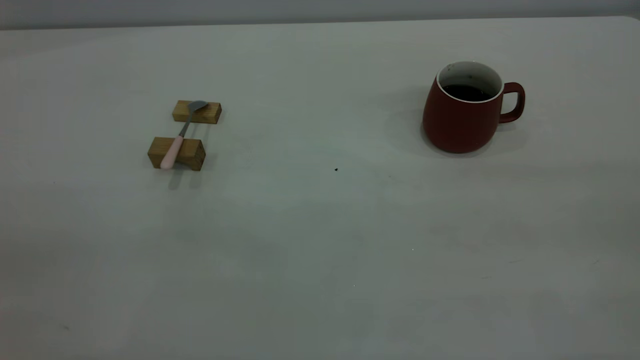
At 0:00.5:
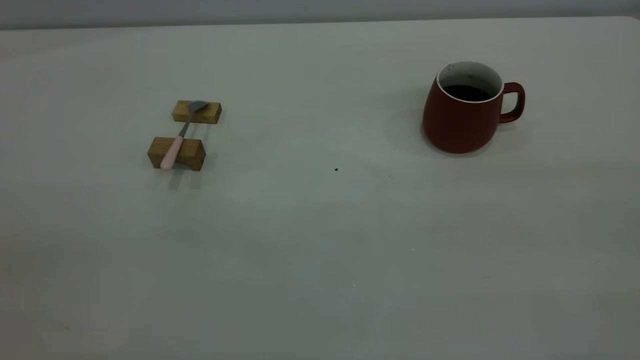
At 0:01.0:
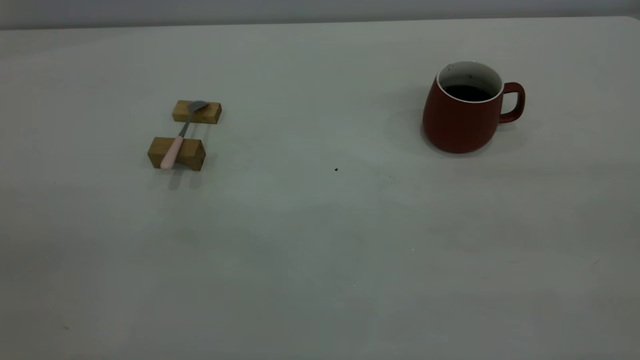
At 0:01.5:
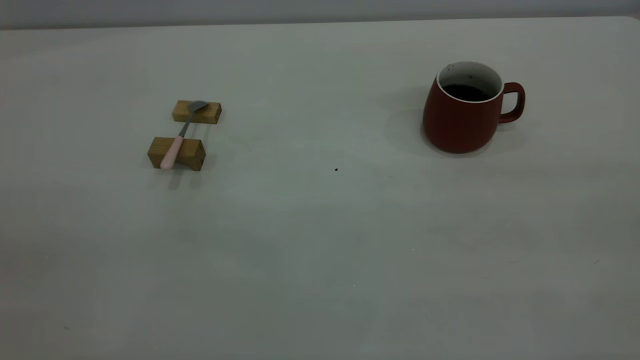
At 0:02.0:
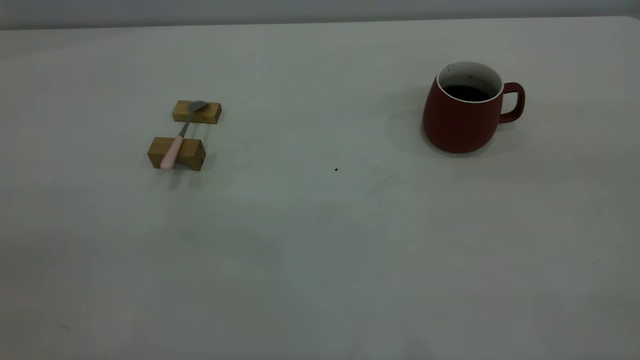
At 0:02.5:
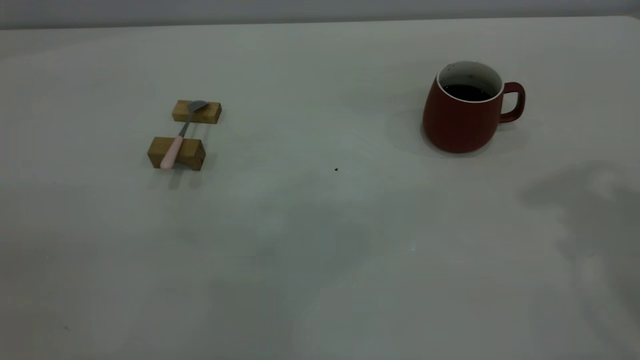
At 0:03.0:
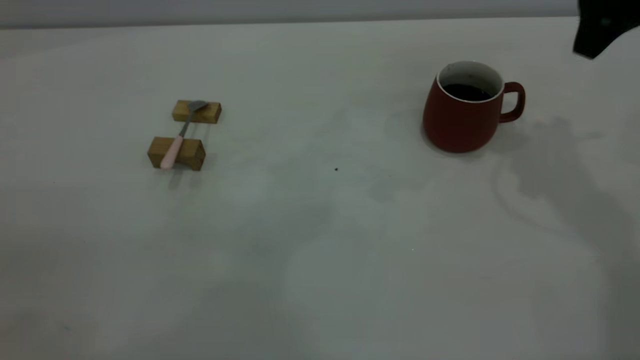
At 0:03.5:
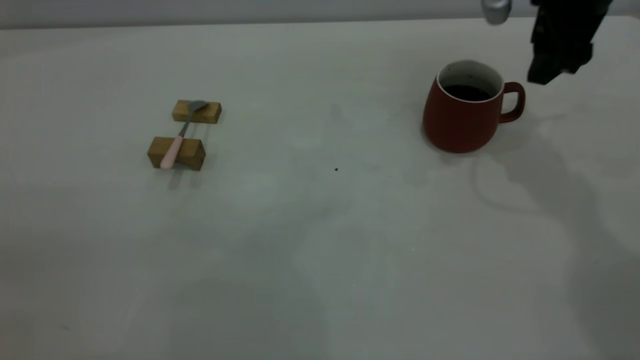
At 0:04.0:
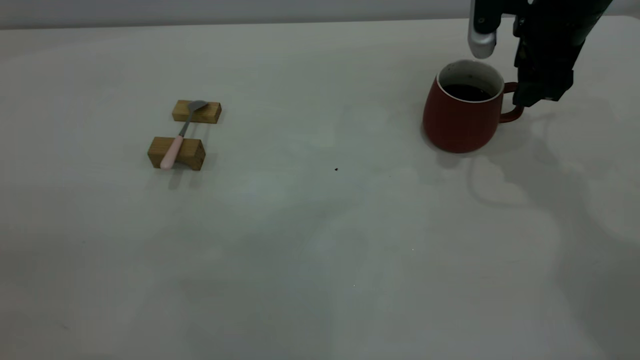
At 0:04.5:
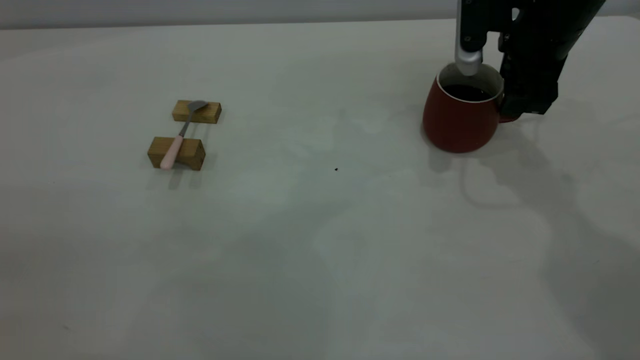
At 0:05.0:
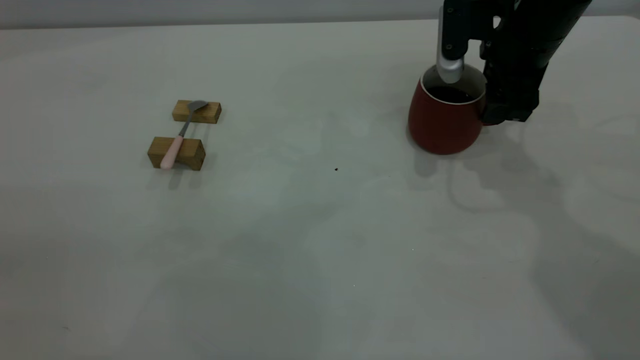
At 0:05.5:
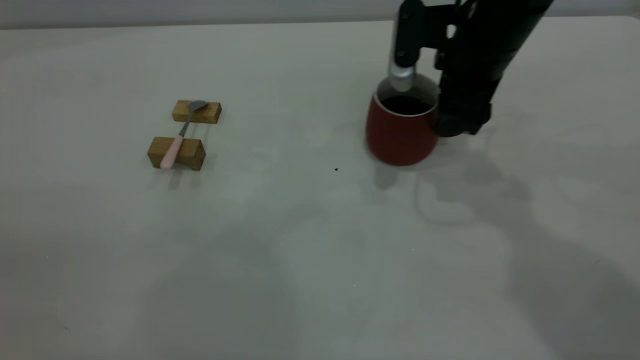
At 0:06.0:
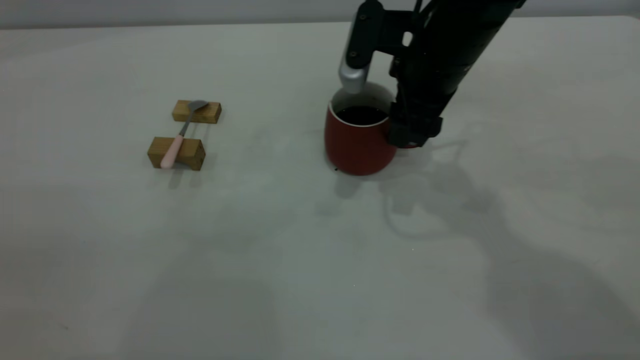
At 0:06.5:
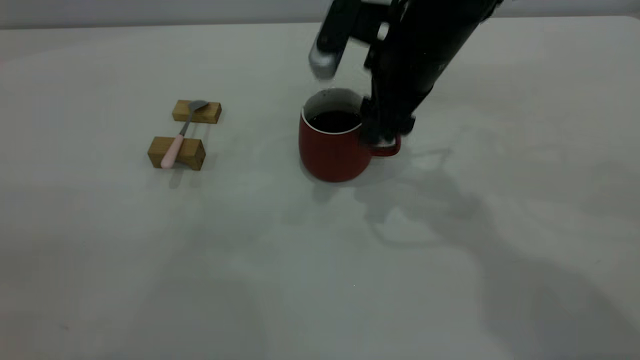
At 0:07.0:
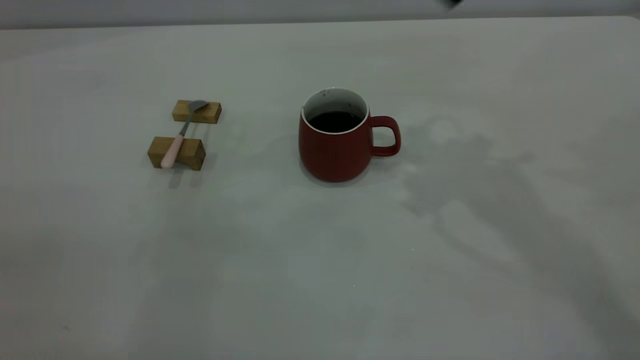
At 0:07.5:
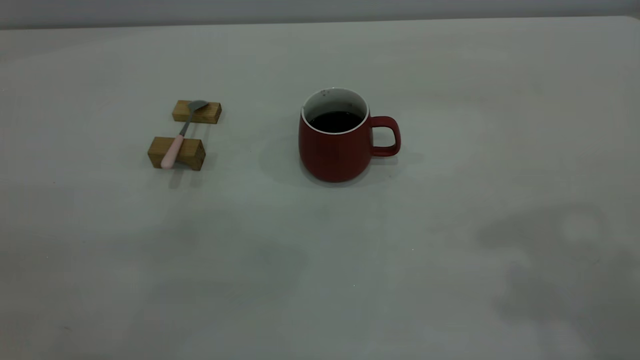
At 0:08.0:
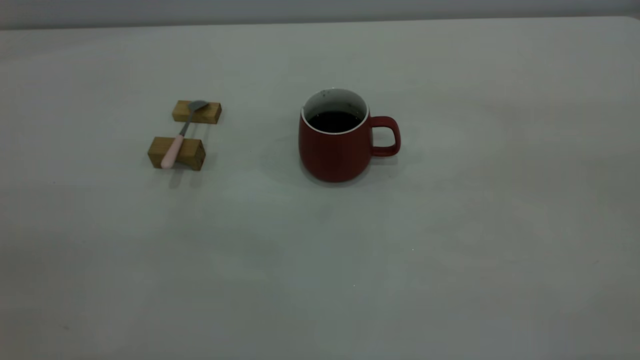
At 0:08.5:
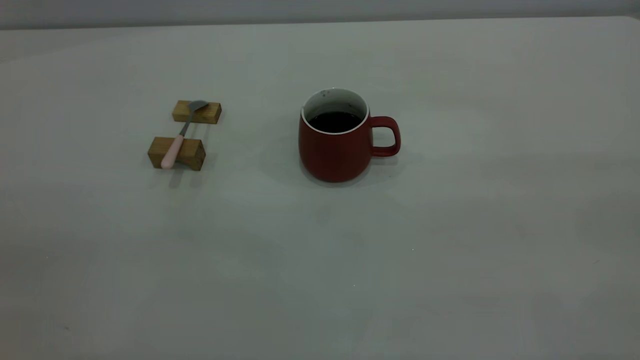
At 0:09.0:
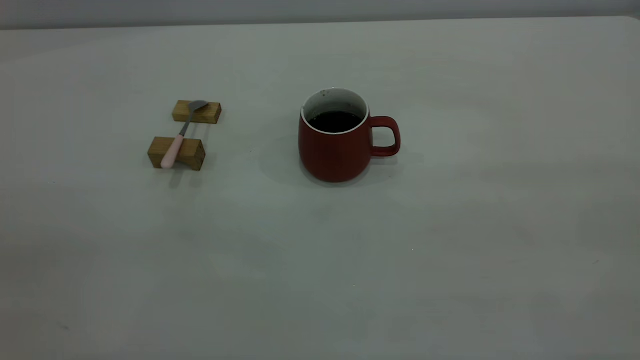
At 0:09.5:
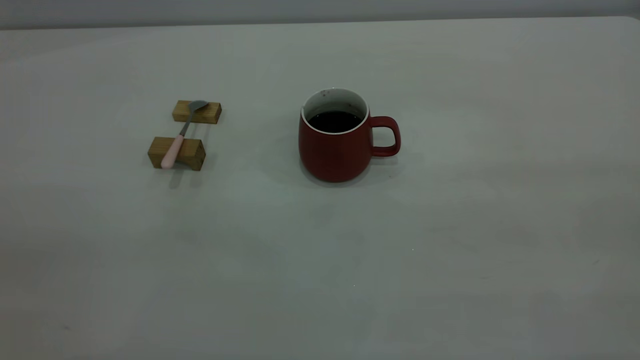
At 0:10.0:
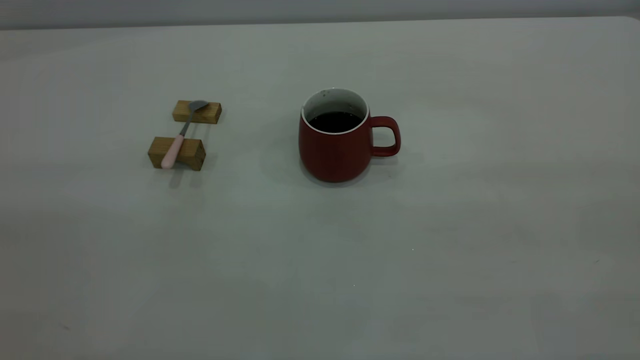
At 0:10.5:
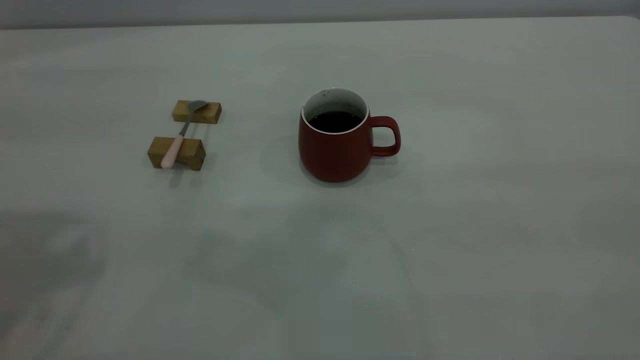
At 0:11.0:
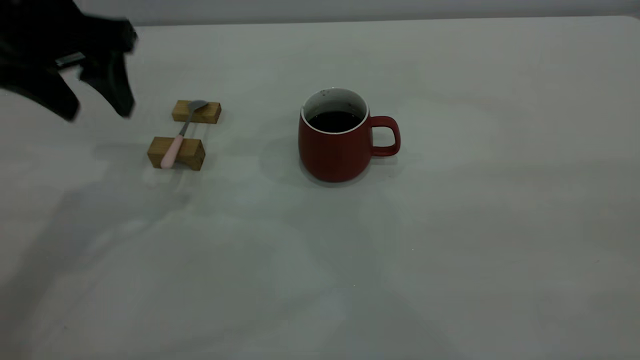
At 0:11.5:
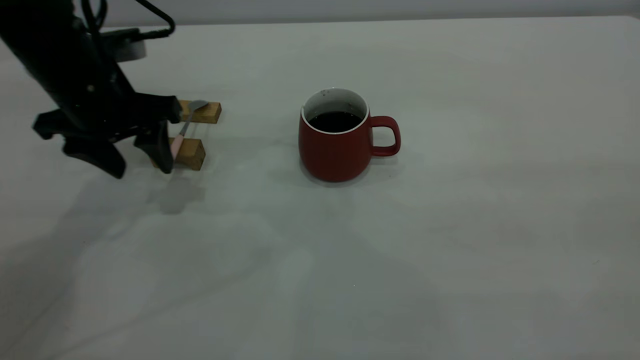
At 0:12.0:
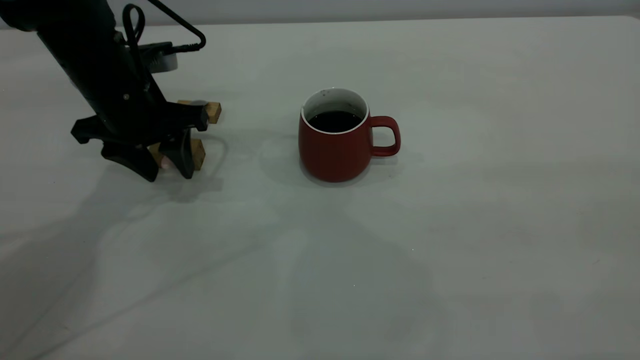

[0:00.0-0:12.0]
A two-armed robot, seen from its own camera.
Step, 0:00.0 to 0:06.5: Move the cup with coffee to the center of view.
0:02.0 to 0:04.0: The right gripper moves forward and downward, roughly 40 cm.
0:04.0 to 0:06.0: The right gripper travels to the left by about 10 cm.
0:06.0 to 0:08.0: The right gripper travels backward, upward and to the right by some 50 cm.
0:10.0 to 0:12.0: The left gripper travels forward and downward by about 40 cm, and opens, then closes again.

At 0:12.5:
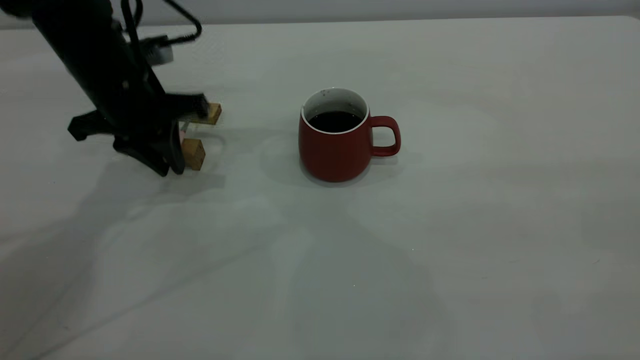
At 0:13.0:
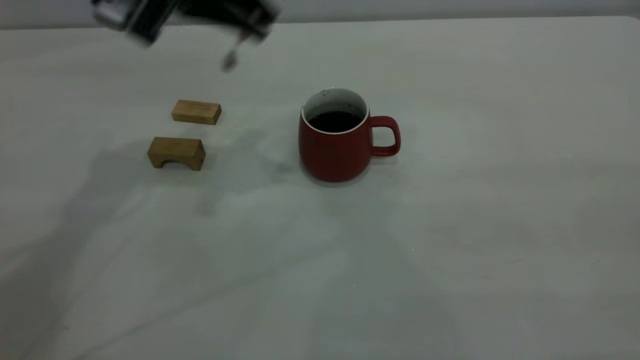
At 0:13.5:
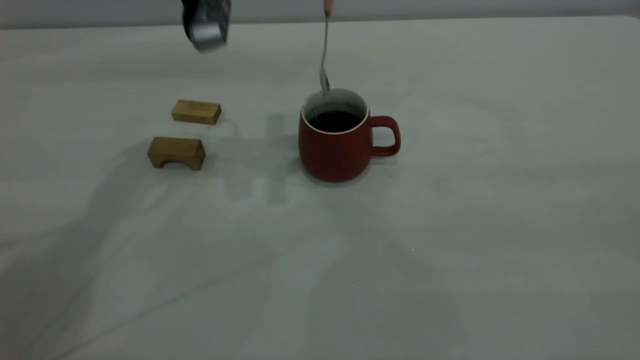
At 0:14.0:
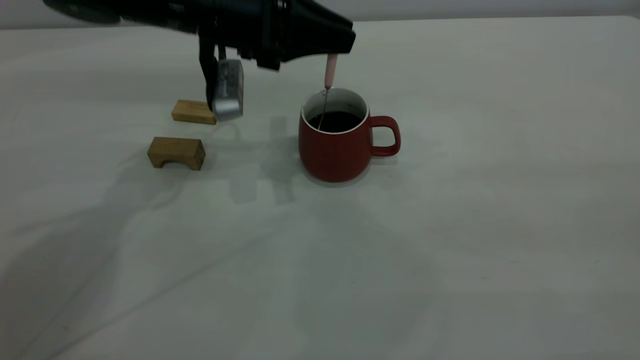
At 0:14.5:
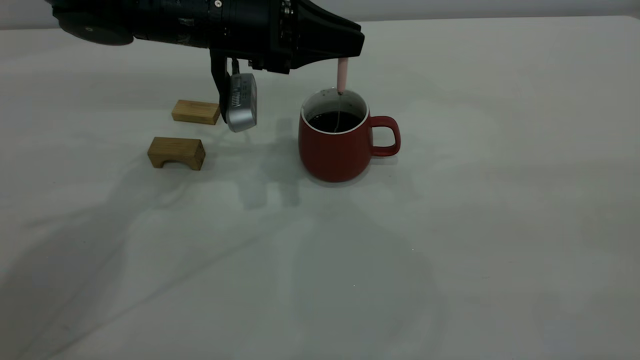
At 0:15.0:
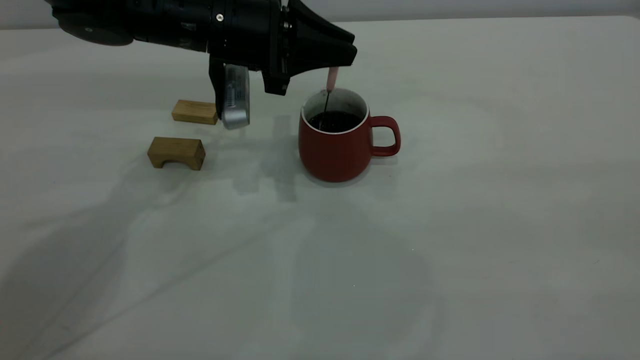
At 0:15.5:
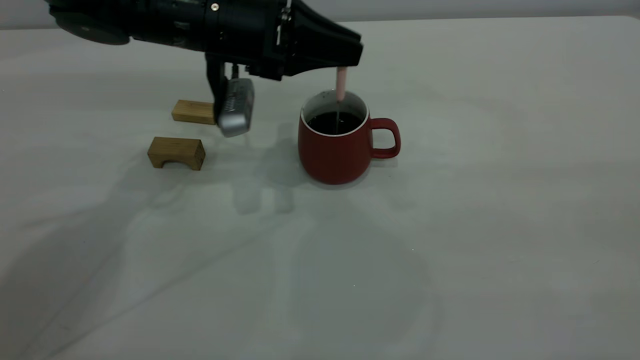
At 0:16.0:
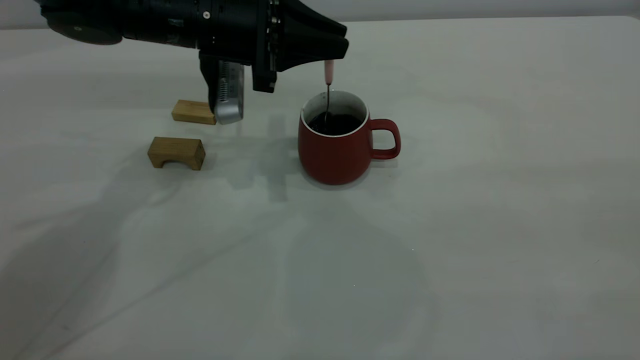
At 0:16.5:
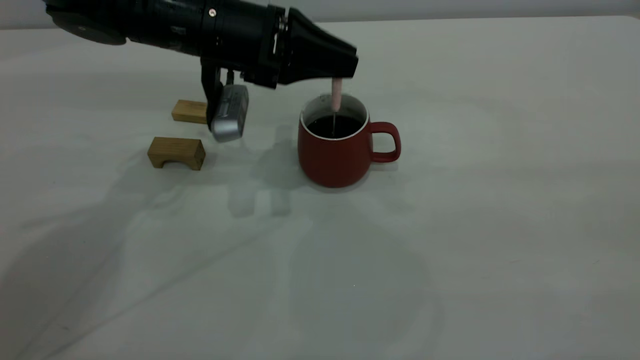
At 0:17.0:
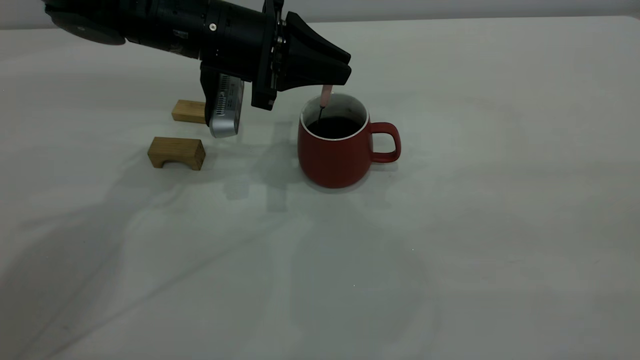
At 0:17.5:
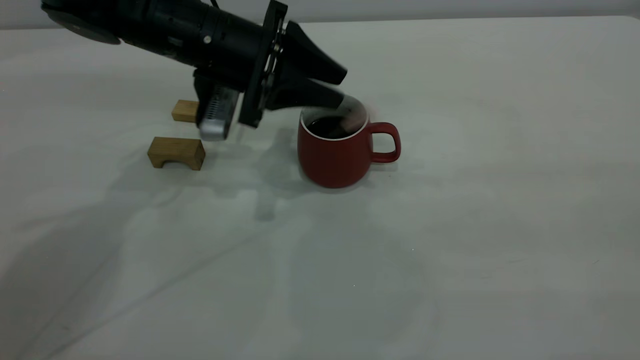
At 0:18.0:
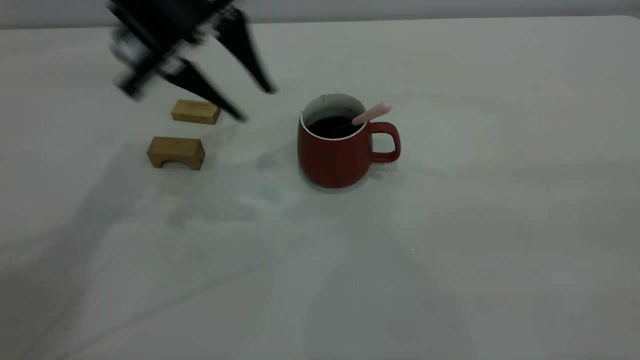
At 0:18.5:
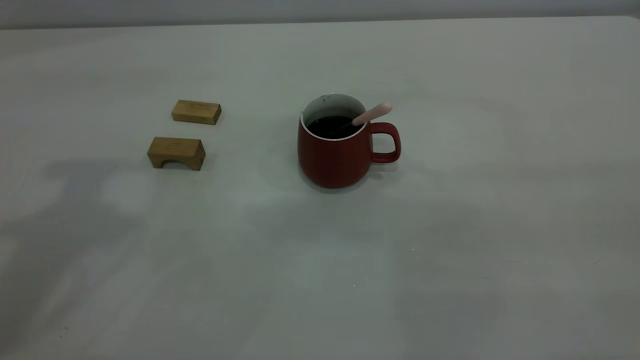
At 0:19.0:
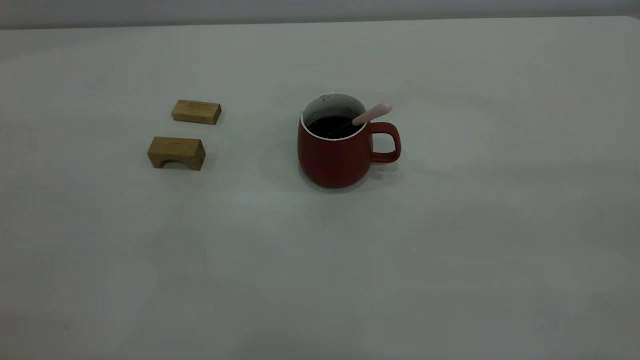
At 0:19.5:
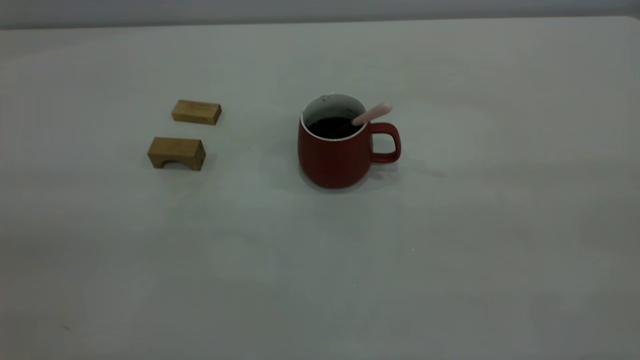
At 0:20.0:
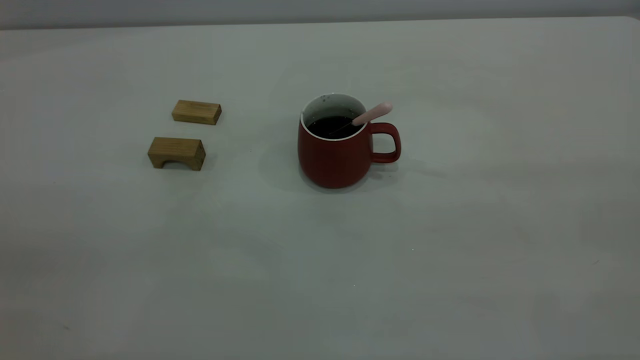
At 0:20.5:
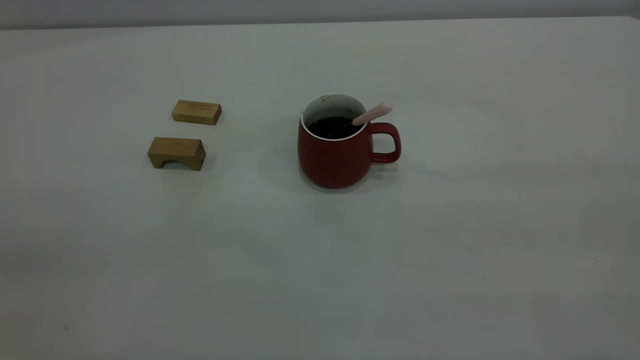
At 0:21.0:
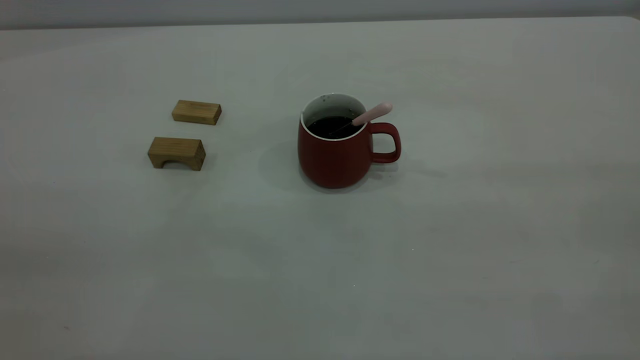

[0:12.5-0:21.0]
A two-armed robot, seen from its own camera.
Step, 0:13.0 to 0:17.5: Stir the coffee in the cup.
0:12.5 to 0:14.5: The left gripper heads to the right, covering some 10 cm, and goes upward and returns, about 10 cm each way.
0:14.5 to 0:16.5: The grippers move only a little.
0:16.5 to 0:19.0: The left gripper shifts approximately 40 cm backward, upward and to the left, and opens.
